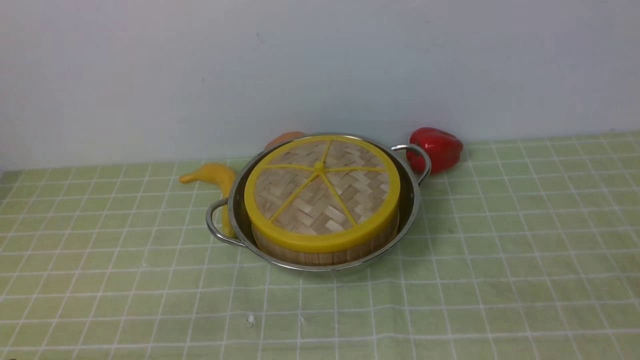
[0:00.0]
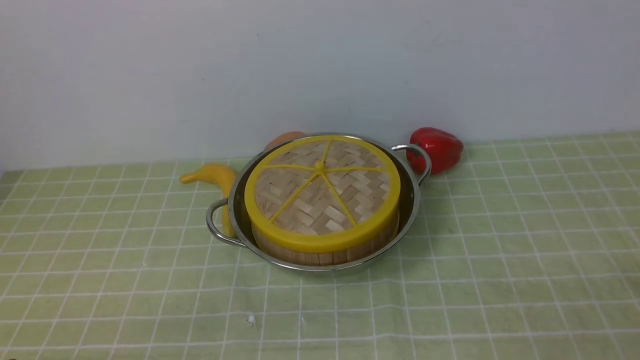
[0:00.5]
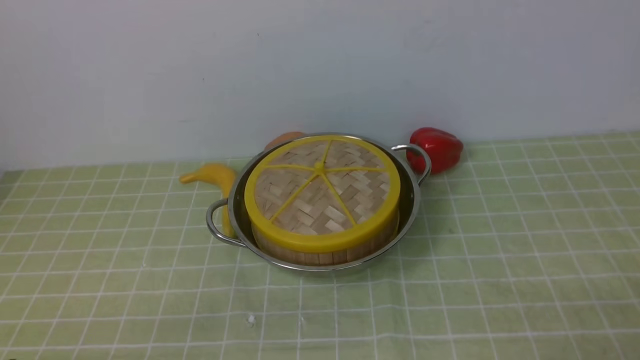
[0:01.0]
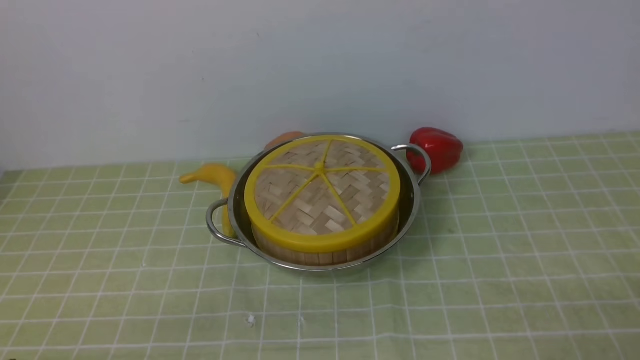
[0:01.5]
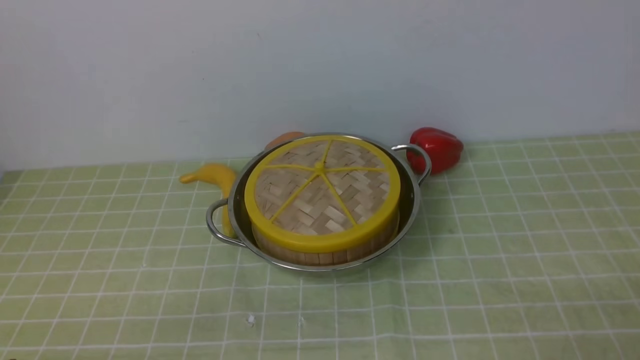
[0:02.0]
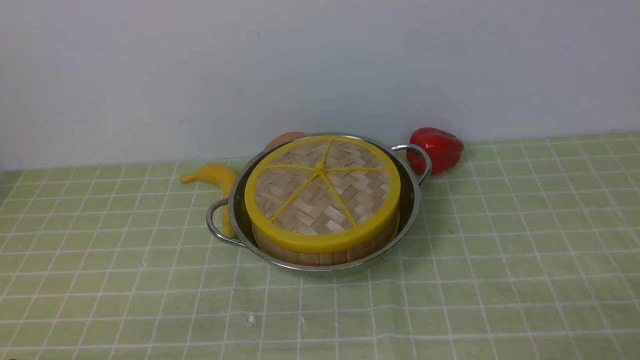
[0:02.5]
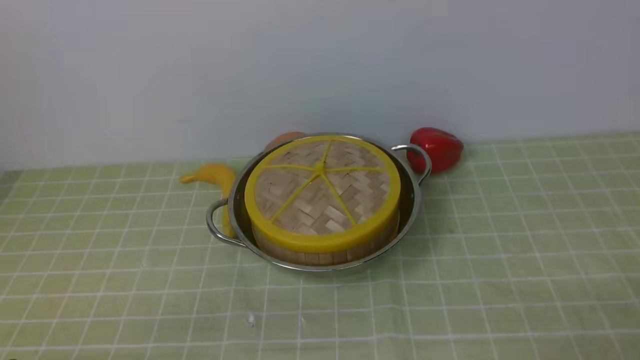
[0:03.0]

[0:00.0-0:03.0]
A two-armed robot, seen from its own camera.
Task of the whole recording: place the steamer in the pot on the green tablecloth, and put the lid on the steamer.
0:01.5 to 0:03.0: Both grippers stay put.

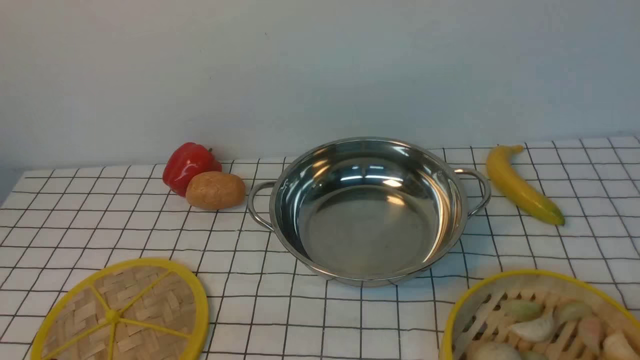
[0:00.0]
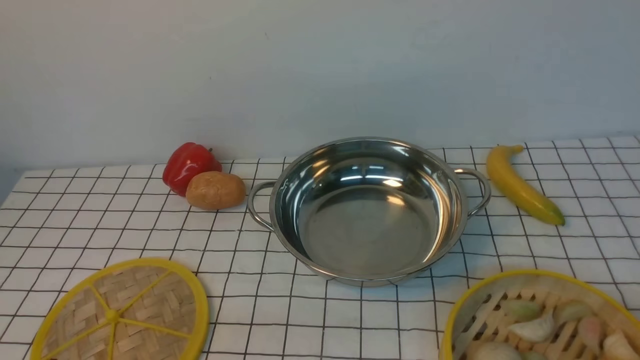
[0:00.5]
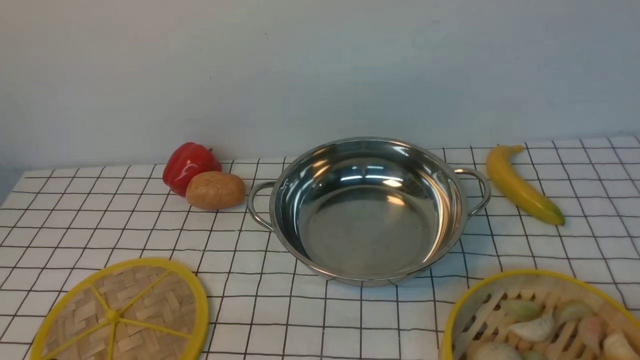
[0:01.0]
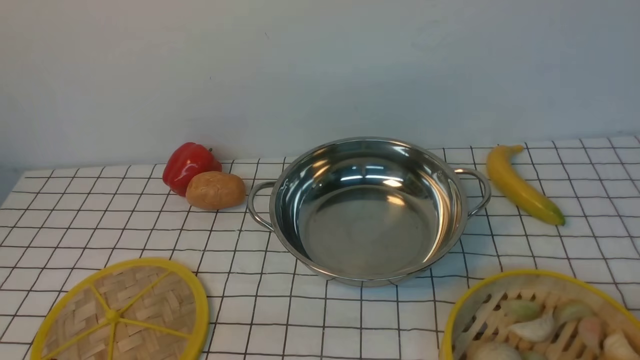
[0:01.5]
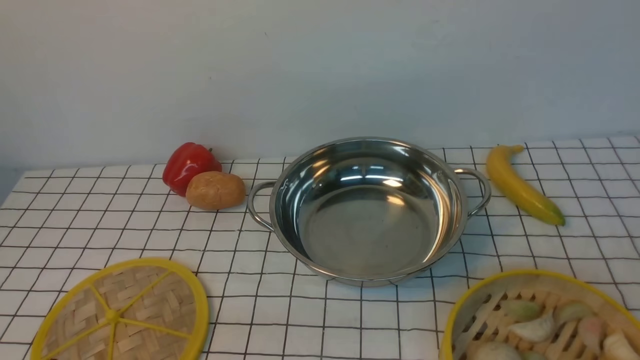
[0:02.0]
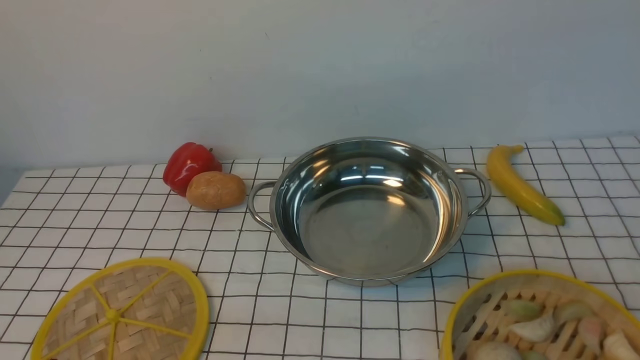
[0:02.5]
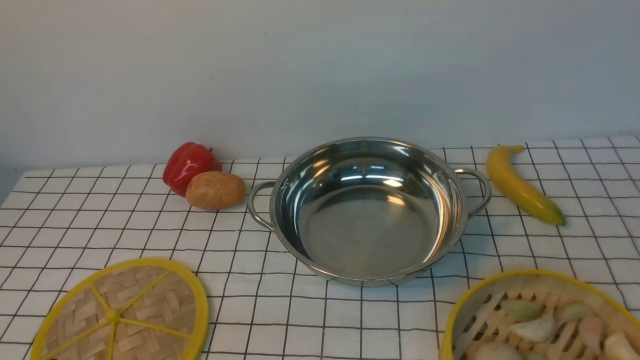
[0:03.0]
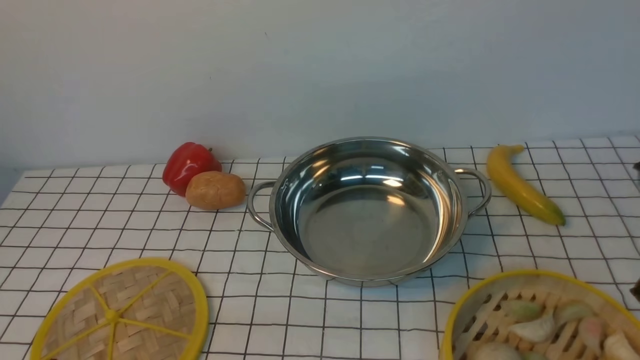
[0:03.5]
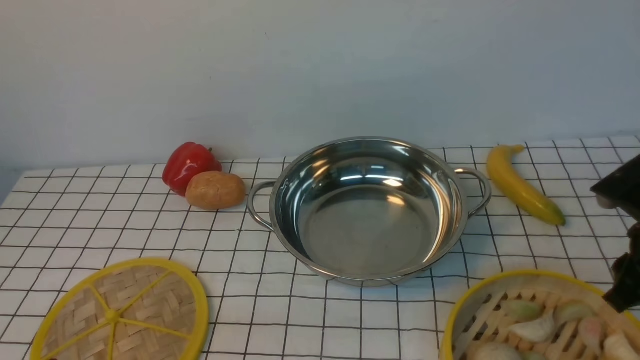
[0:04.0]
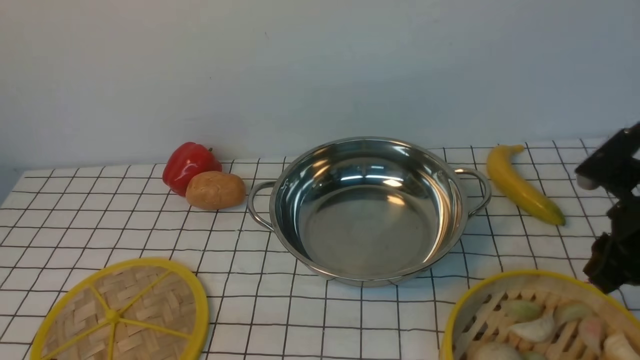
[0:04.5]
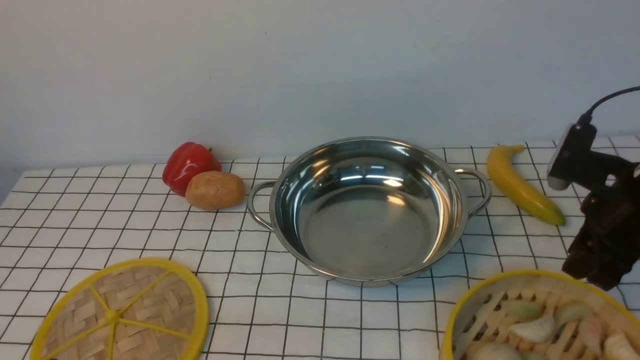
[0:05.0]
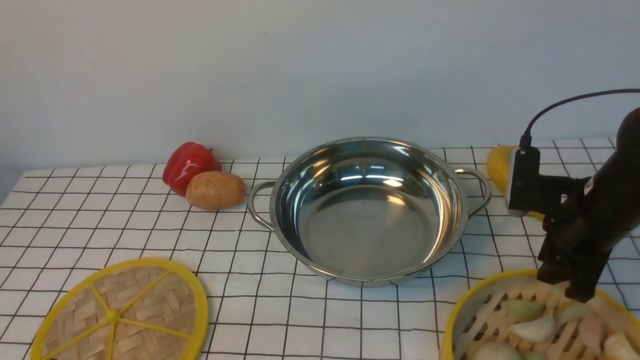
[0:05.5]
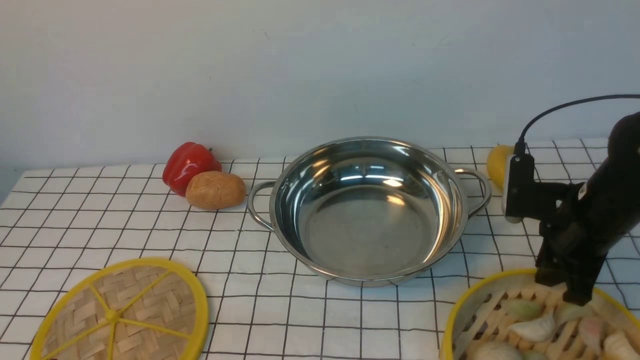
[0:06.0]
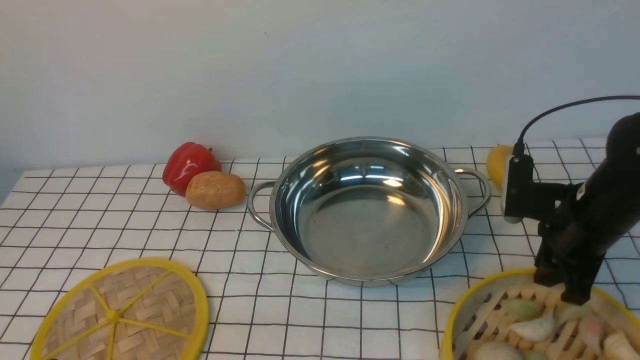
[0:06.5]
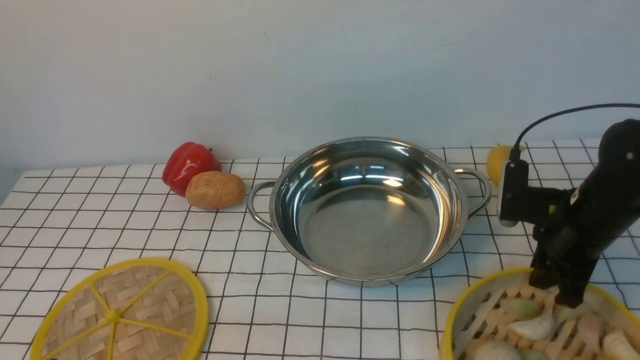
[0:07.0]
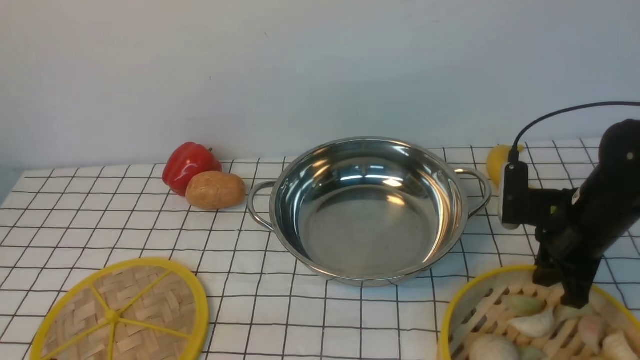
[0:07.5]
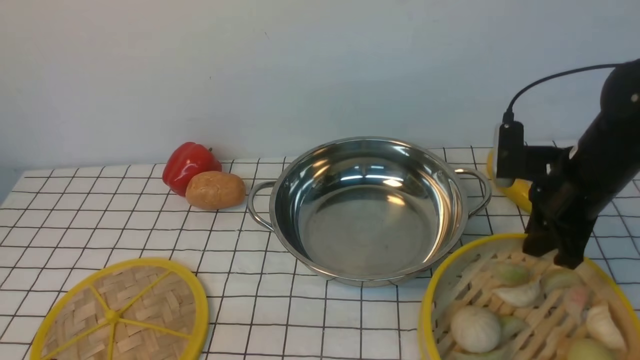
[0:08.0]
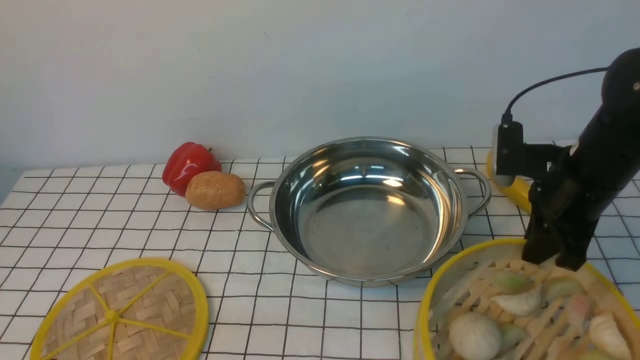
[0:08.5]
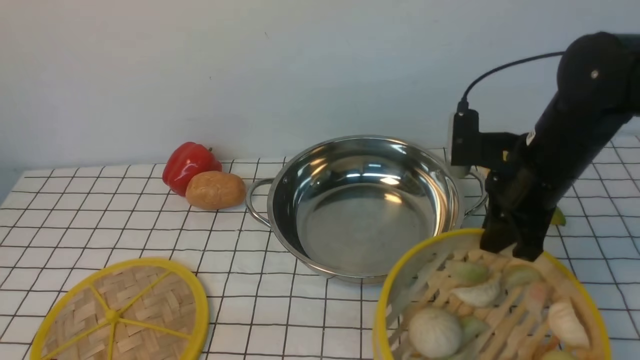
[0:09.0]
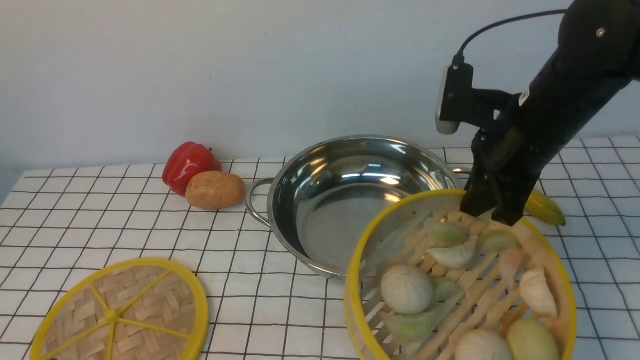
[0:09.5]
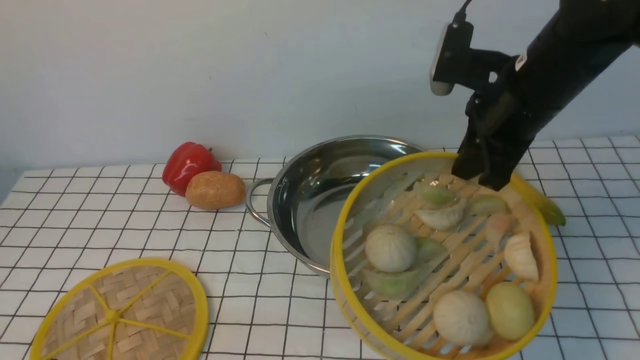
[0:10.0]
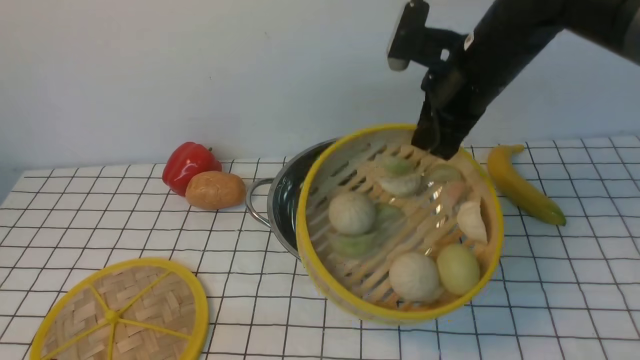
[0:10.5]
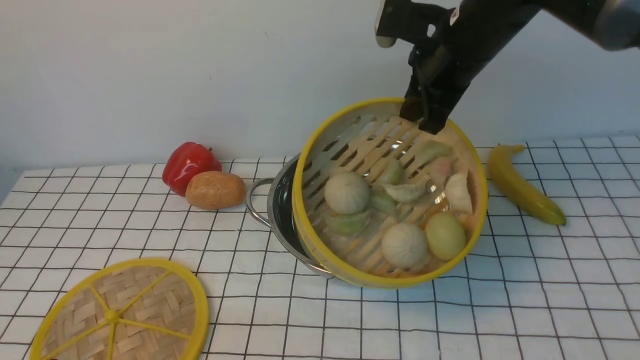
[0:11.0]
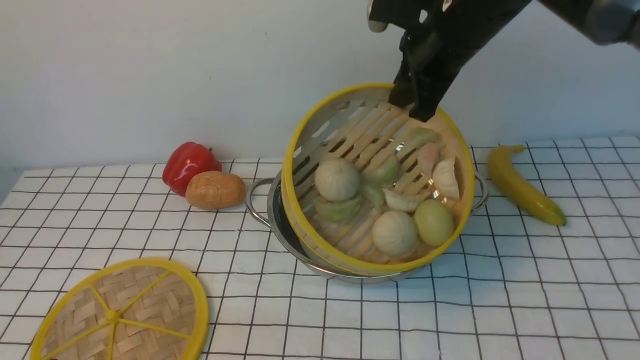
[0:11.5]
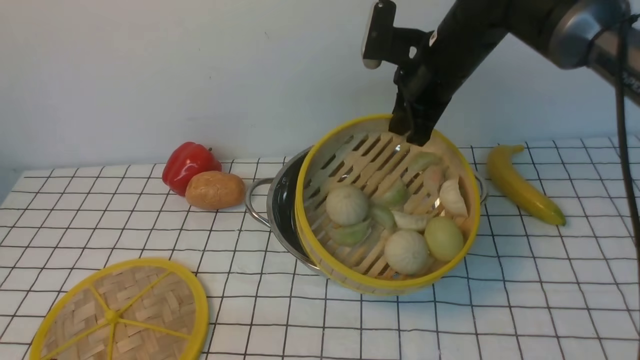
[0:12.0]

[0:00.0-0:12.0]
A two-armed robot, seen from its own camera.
Task of the whole recording: place the steamer in the pot on the white tablecloth, and put the lid on the steamer.
Step, 0:00.0 to 0:08.0: use the right arm to lift the steamer closest to it.
0:02.0 to 0:04.0: The right gripper shifts roughly 20 cm forward.
0:04.0 to 0:06.0: The right gripper goes approximately 5 cm forward.
0:06.0 to 0:08.0: The right gripper closes its fingers.
0:08.0 to 0:10.0: The right gripper travels upward and to the left by about 10 cm.
0:10.0 to 0:12.0: The right gripper moves forward, some 10 cm.

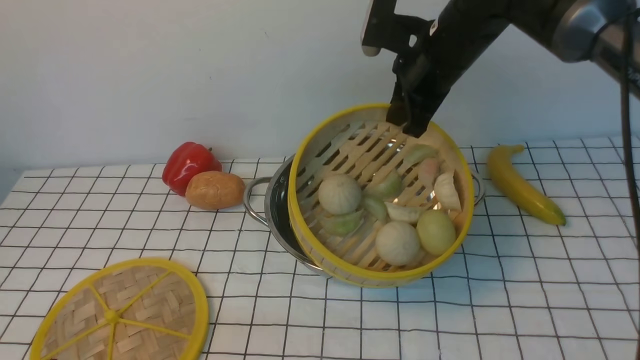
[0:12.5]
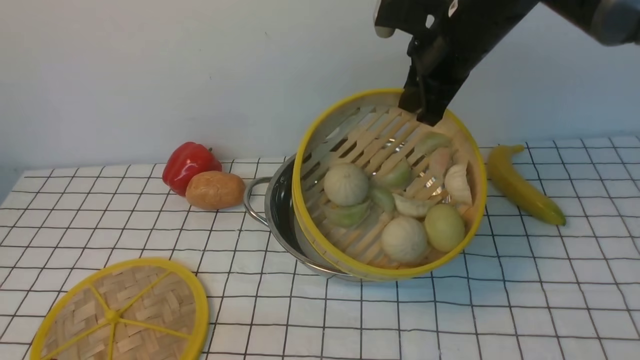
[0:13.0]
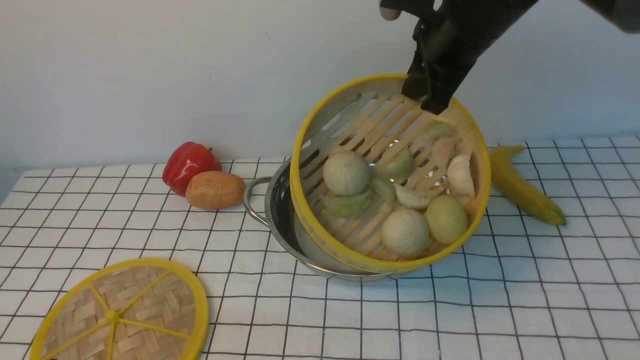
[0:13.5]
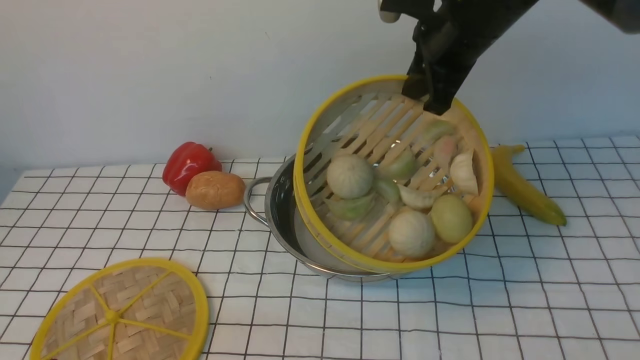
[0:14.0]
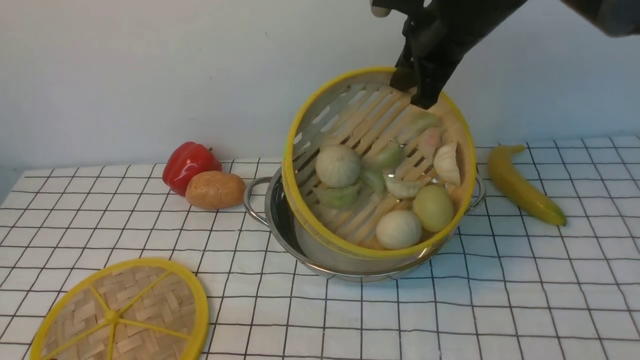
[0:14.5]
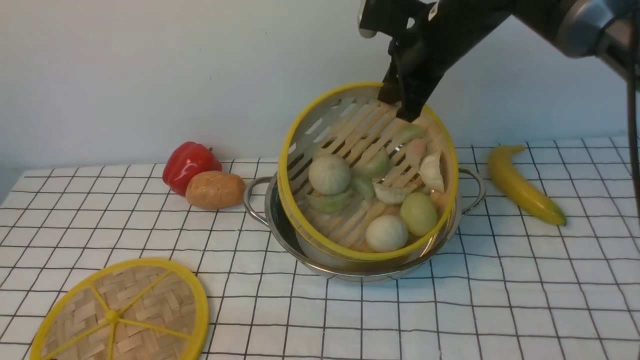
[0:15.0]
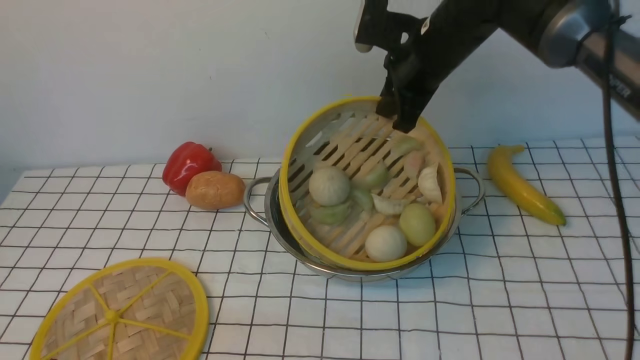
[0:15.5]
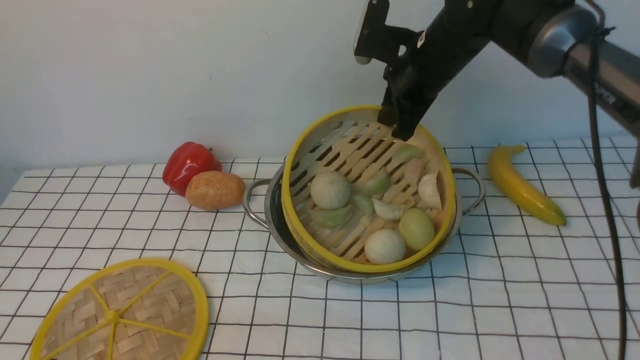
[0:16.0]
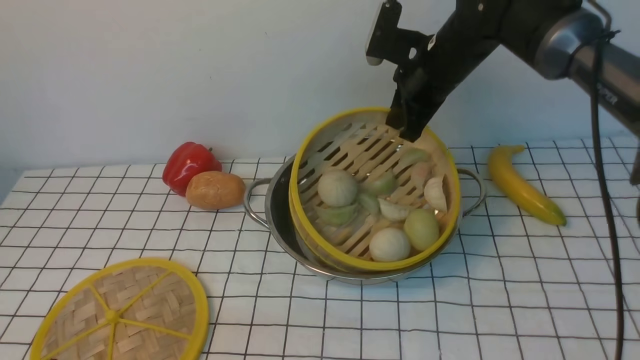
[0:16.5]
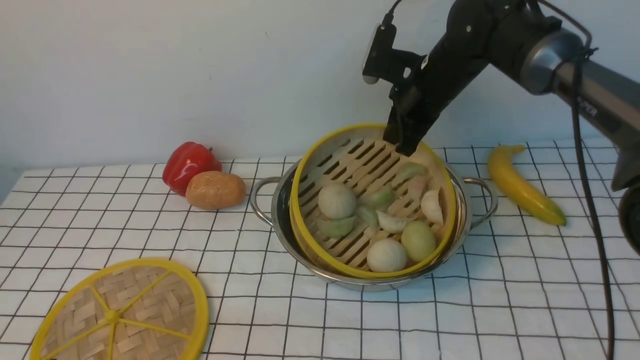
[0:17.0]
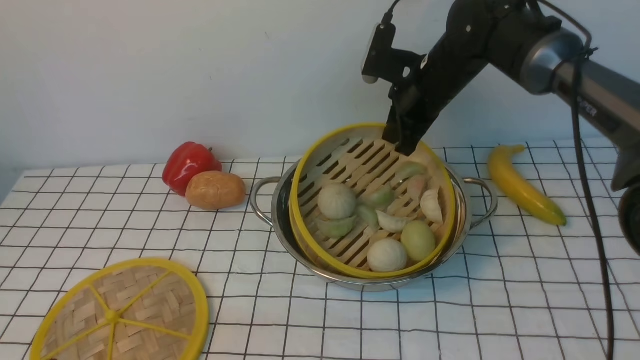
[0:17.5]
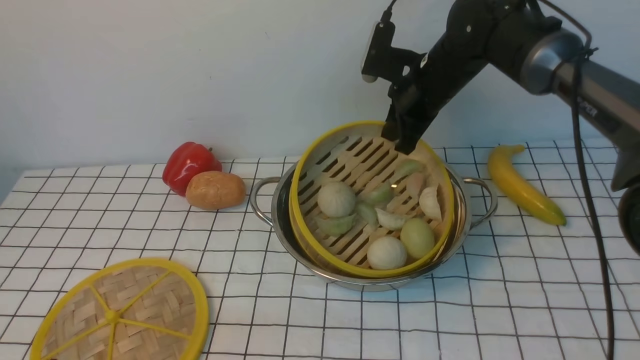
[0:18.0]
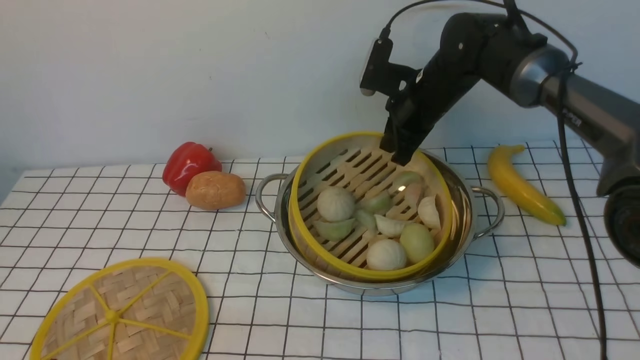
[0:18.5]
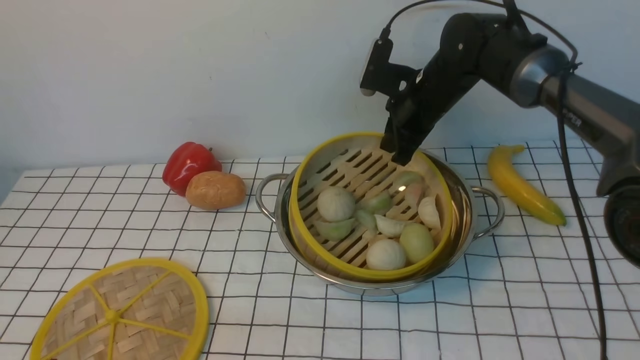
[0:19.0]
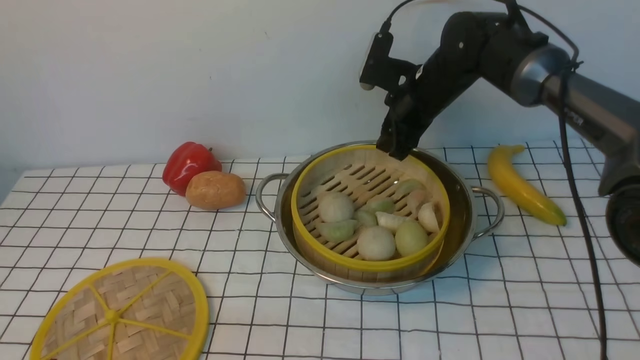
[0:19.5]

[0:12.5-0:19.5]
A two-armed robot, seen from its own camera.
Task of the whole recording: place the steamer in the pot on the white tablecloth, and put the lid on the steamer.
Step, 0:12.5 to 0:19.5: use the right arm to put the steamer into the iron steamer pot in the middle.
0:12.5 to 0:14.5: The grippers move only a little.
0:14.5 to 0:16.0: The right gripper moves downward, about 5 cm.
0:16.0 to 0:17.5: The grippers stay close to where they were, moving slightly.
0:17.5 to 0:19.5: The right gripper opens.
